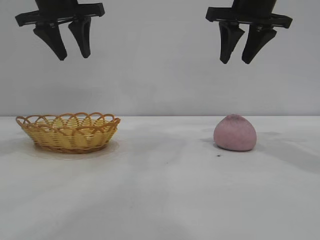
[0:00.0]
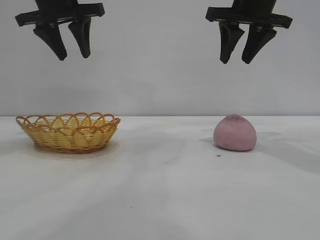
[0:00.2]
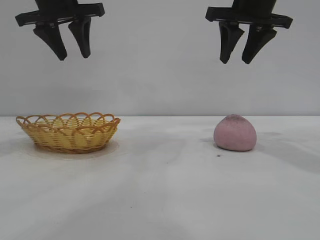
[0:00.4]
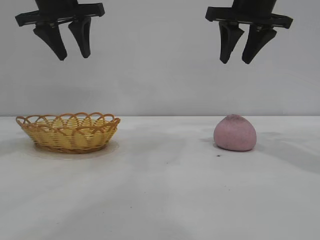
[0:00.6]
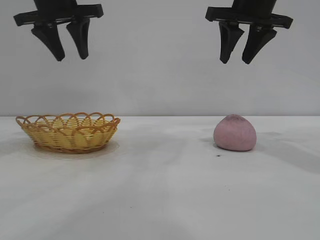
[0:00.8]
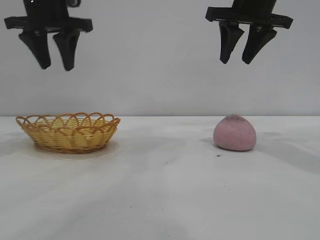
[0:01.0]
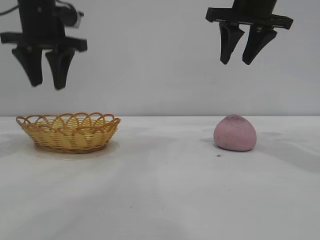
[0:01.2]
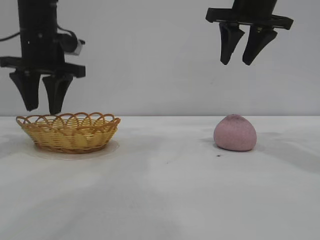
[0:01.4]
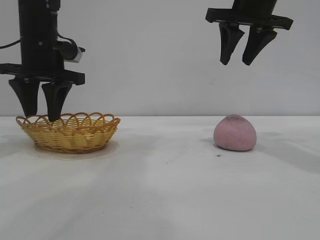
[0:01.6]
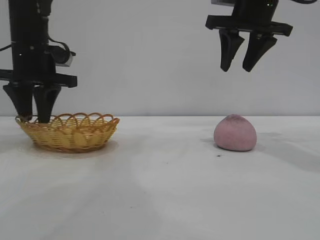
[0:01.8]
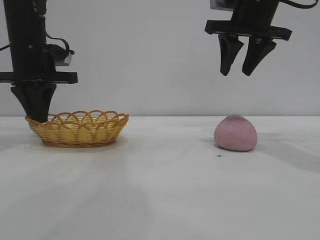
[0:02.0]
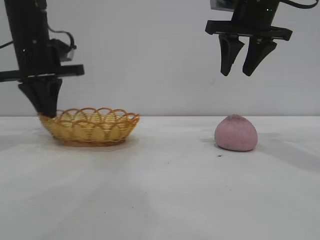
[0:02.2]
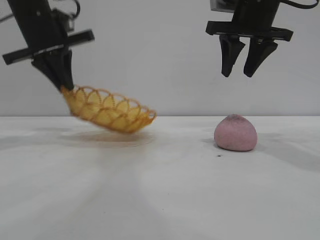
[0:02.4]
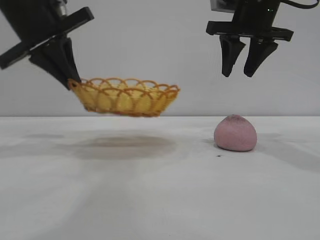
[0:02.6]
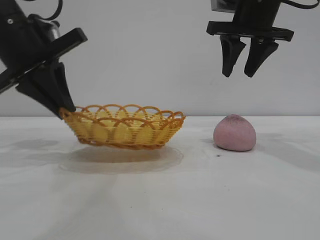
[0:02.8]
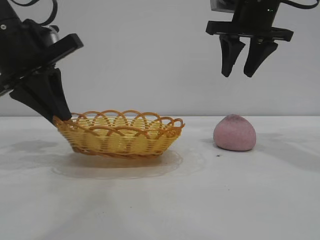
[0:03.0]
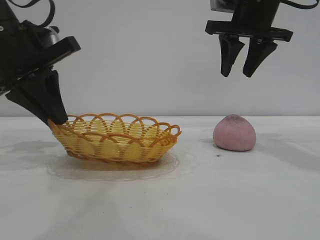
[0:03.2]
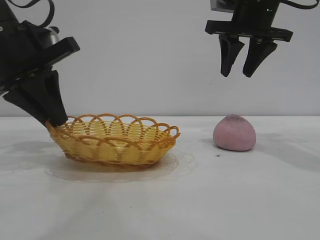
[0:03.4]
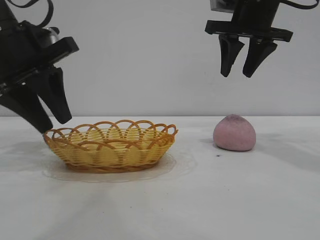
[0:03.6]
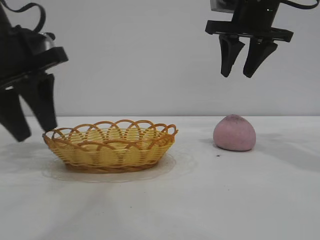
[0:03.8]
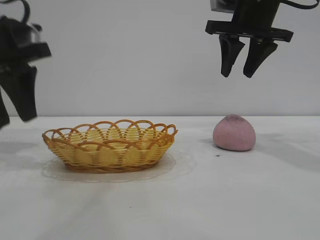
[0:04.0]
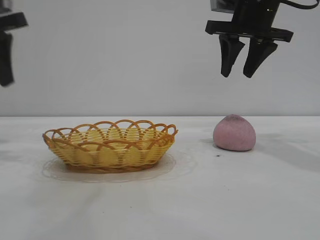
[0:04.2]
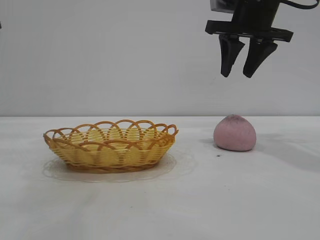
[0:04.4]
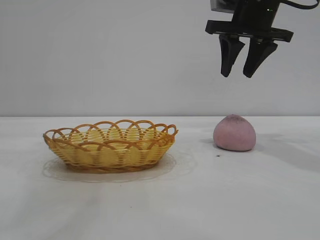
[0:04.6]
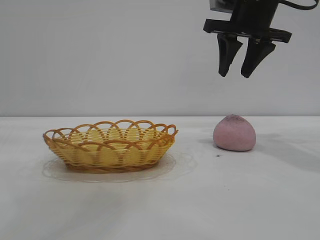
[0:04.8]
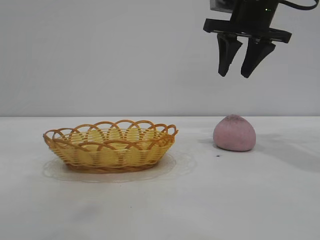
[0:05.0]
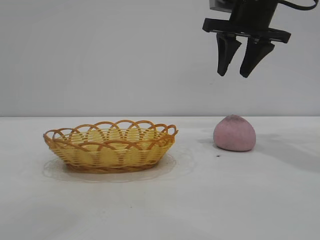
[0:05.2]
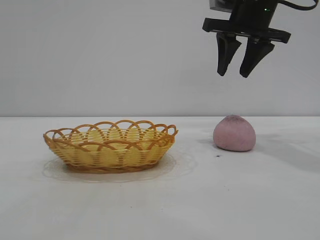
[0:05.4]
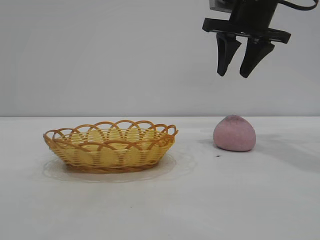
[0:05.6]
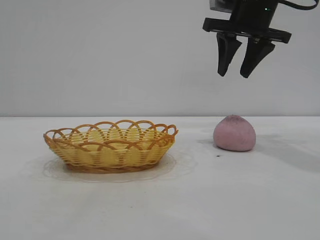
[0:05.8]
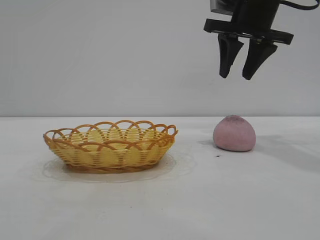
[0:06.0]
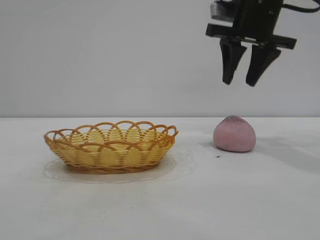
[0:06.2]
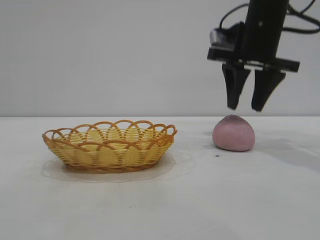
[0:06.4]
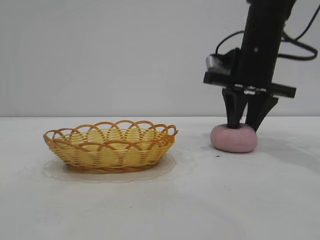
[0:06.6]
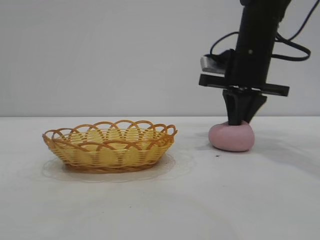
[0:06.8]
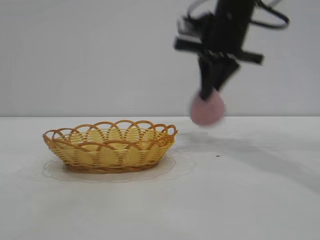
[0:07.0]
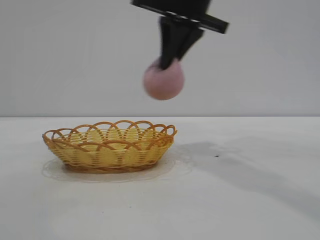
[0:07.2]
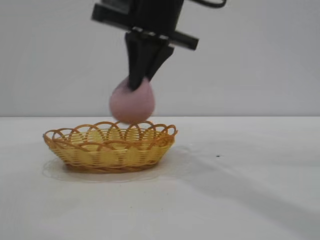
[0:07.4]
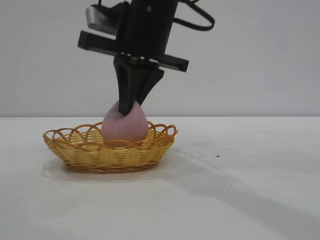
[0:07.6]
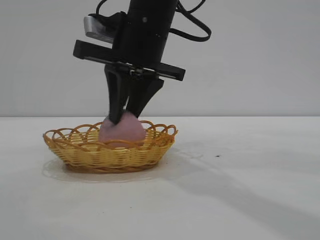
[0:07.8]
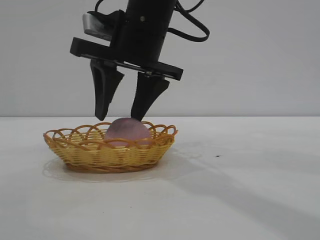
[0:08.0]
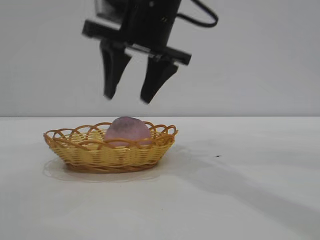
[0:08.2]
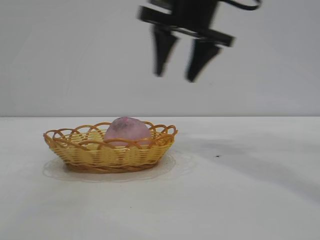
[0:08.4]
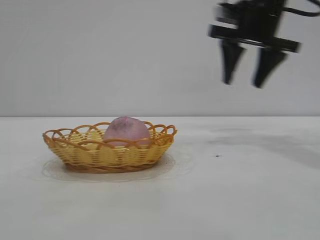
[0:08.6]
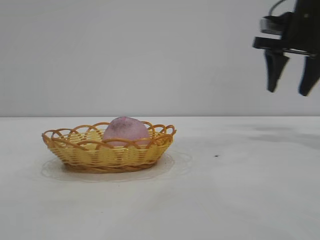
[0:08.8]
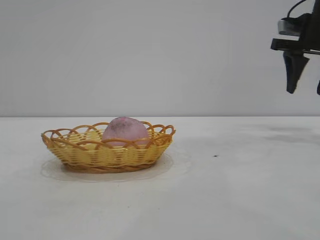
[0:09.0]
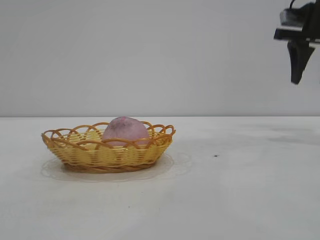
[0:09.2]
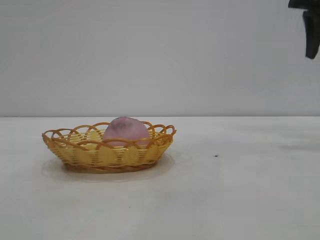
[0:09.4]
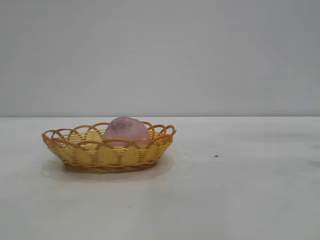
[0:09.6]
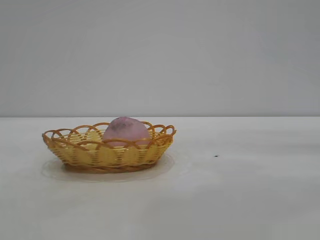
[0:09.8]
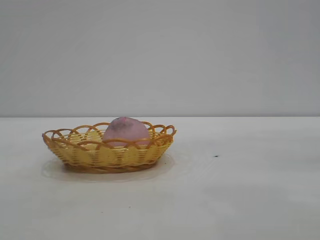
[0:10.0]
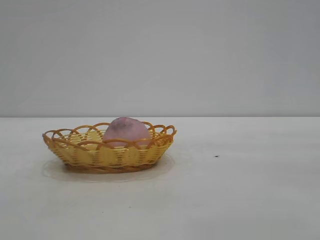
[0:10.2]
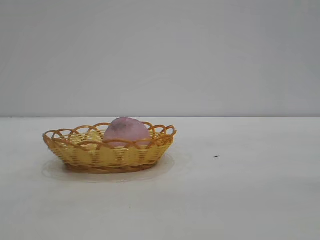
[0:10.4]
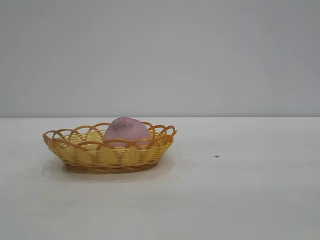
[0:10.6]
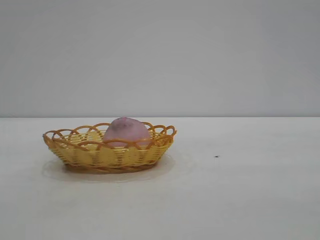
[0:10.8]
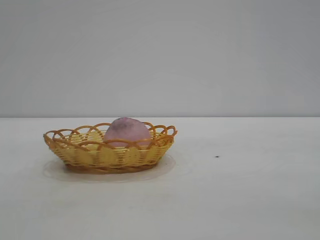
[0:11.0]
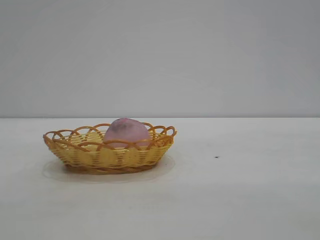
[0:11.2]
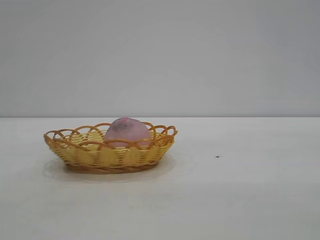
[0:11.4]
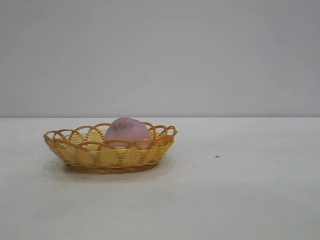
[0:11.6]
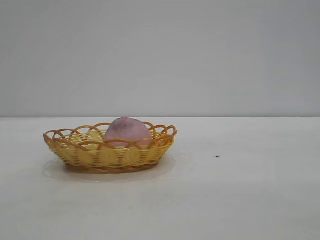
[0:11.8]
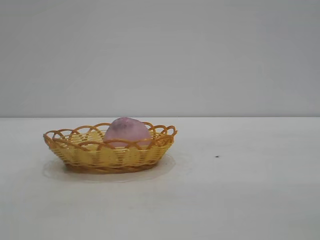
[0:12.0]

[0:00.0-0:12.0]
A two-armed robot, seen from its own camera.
Task of the whole recording: pick up the peach and put it into the basket.
Step, 0:00.0 to 0:03.8: Move the basket to the center of view.
Step, 0:04.2 to 0:06.8: Pick up the peach.
Step, 0:07.2 to 0:08.2: place the peach into the basket.
